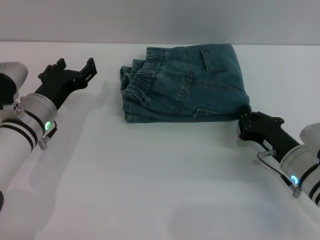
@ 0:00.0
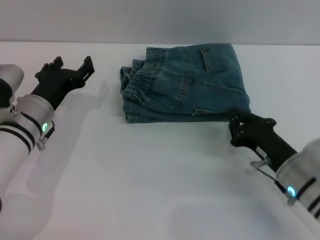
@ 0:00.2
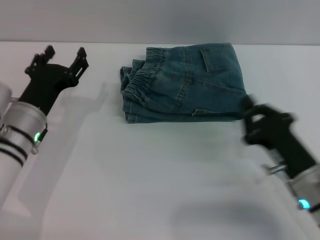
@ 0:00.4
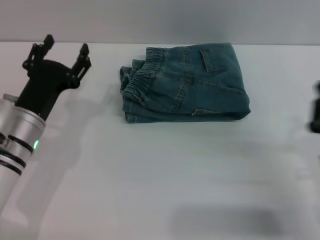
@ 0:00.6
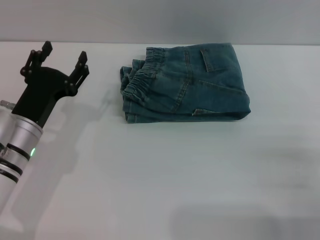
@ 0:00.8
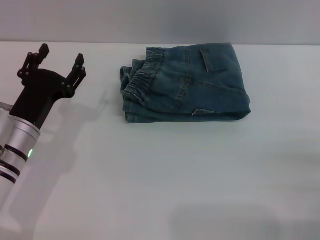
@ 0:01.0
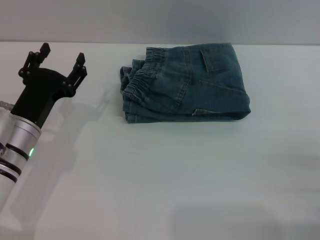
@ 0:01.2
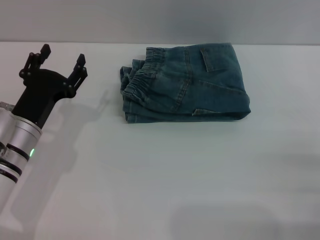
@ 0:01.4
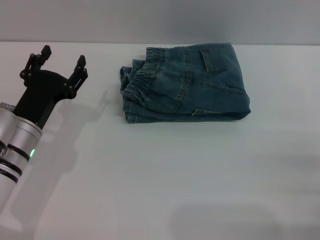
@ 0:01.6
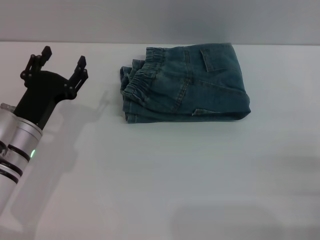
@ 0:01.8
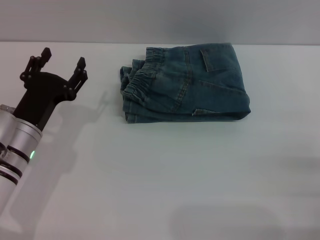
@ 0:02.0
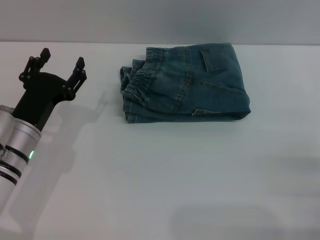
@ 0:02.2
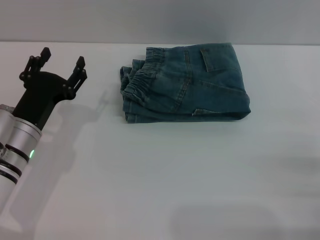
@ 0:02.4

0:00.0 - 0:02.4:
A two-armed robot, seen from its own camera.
0:00.0 - 0:01.2: The right gripper travels backward and to the right by roughly 15 cm, and opens up. Meanwhile the left gripper shifts by some 5 cm.
